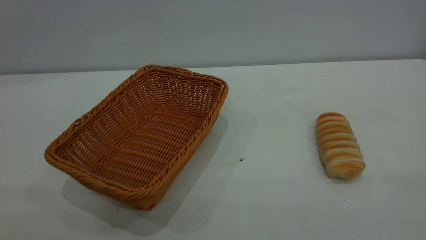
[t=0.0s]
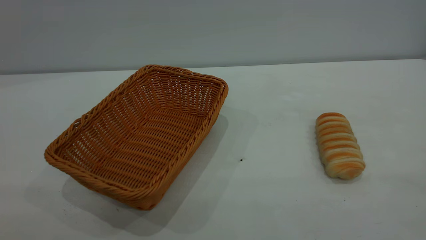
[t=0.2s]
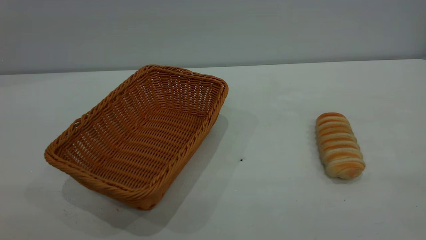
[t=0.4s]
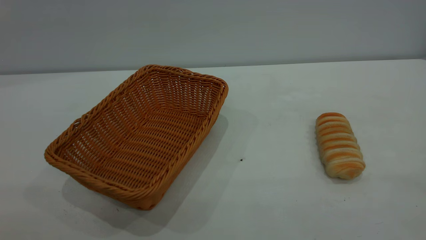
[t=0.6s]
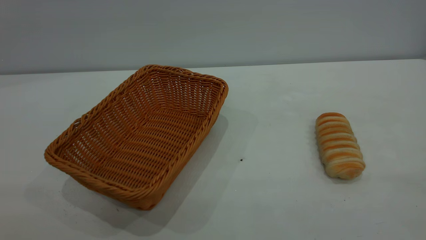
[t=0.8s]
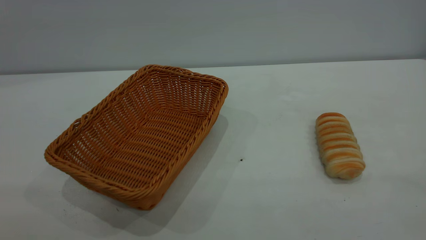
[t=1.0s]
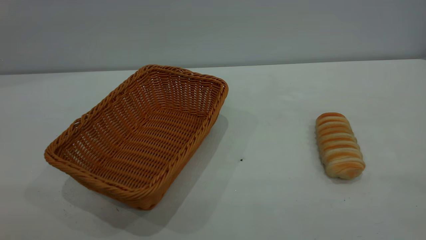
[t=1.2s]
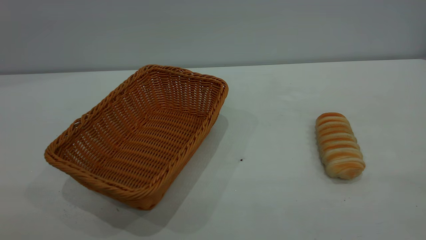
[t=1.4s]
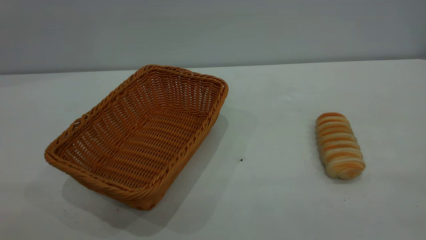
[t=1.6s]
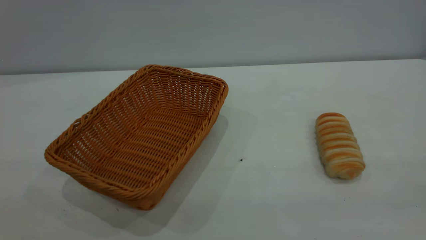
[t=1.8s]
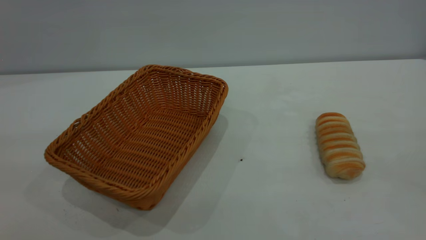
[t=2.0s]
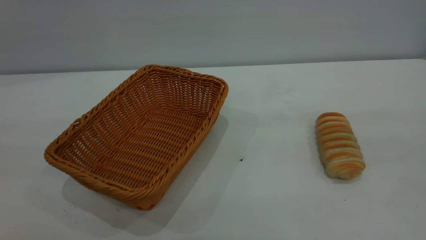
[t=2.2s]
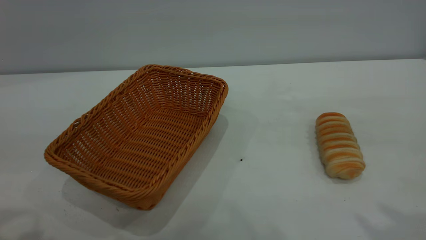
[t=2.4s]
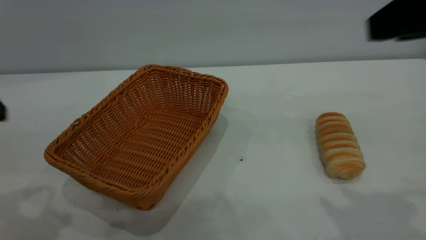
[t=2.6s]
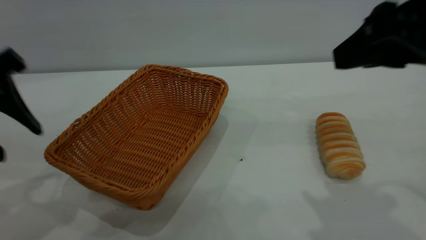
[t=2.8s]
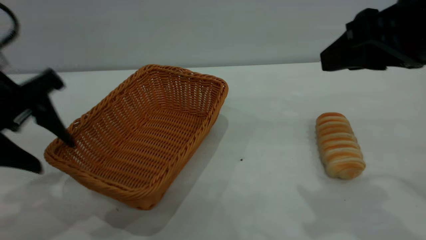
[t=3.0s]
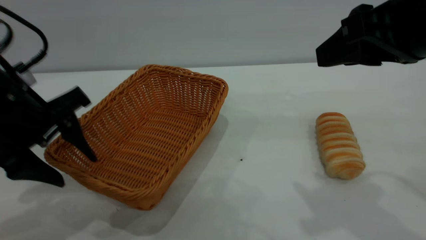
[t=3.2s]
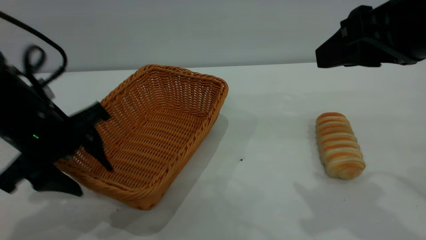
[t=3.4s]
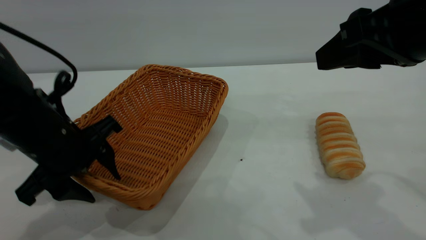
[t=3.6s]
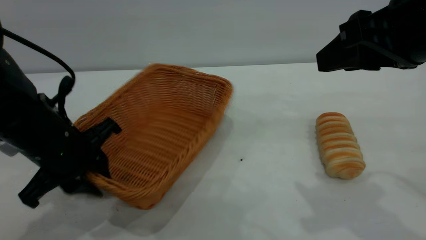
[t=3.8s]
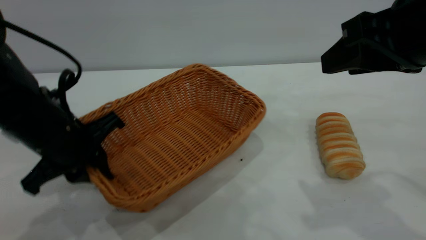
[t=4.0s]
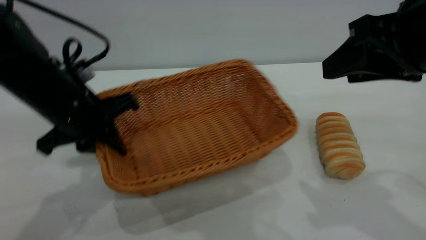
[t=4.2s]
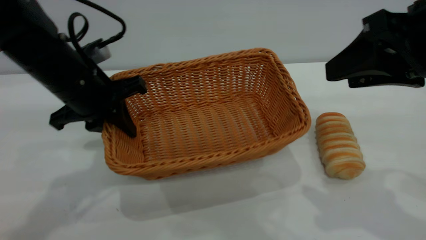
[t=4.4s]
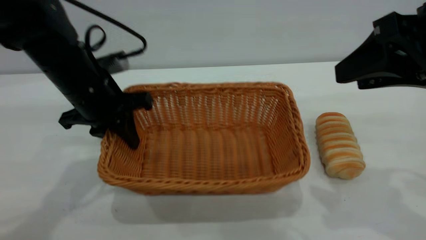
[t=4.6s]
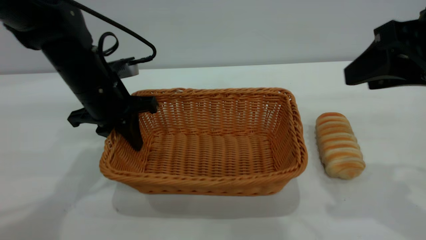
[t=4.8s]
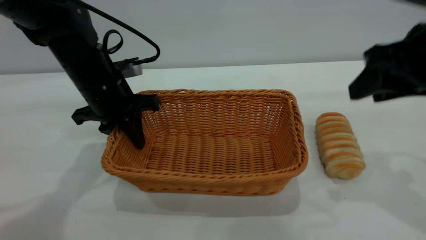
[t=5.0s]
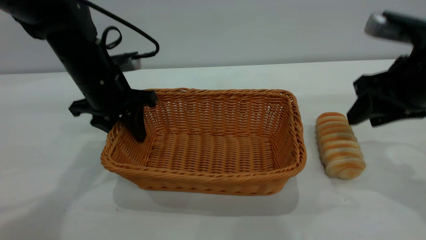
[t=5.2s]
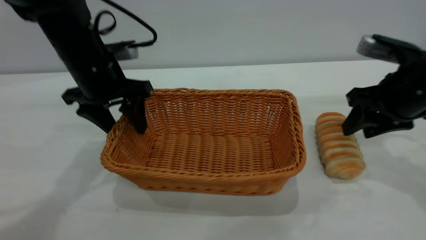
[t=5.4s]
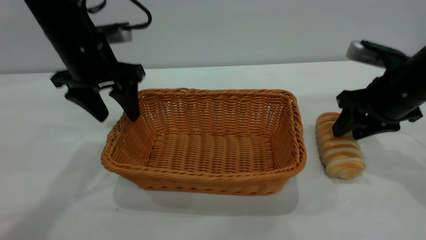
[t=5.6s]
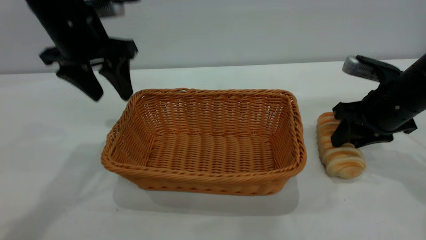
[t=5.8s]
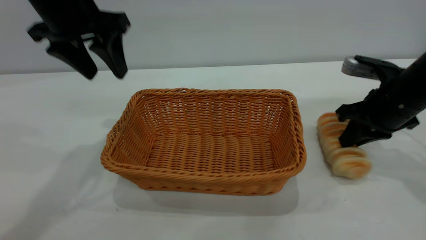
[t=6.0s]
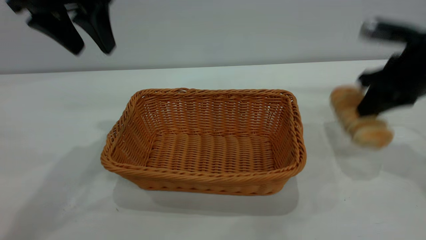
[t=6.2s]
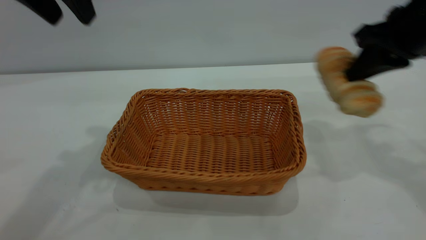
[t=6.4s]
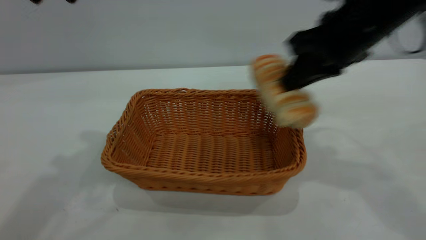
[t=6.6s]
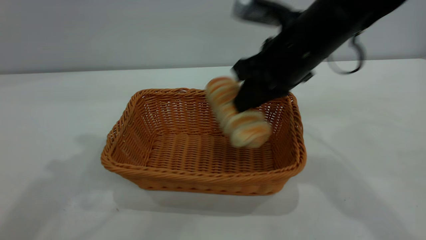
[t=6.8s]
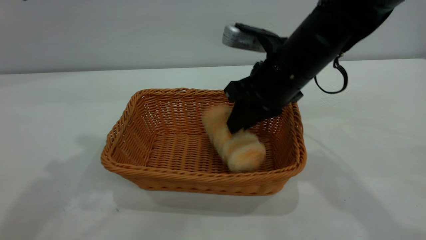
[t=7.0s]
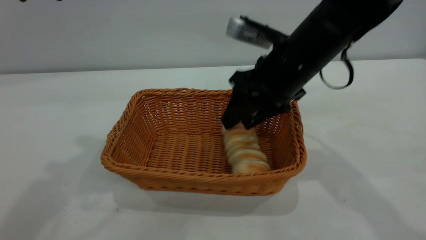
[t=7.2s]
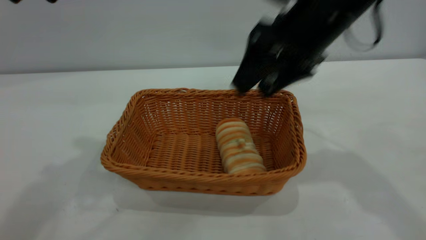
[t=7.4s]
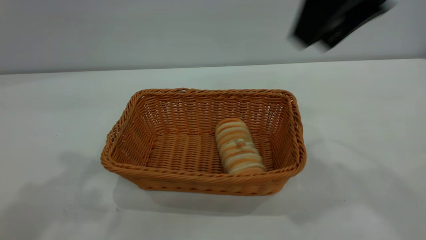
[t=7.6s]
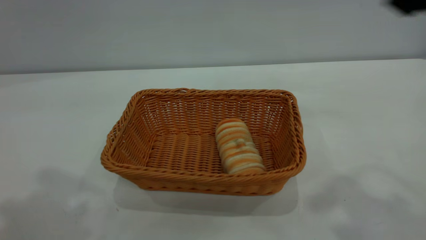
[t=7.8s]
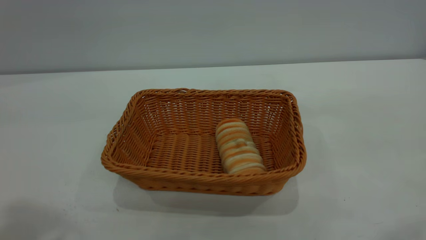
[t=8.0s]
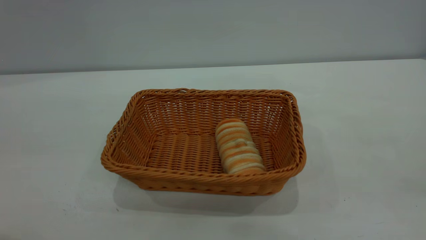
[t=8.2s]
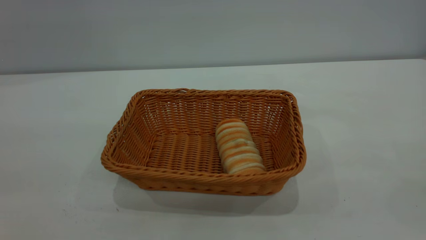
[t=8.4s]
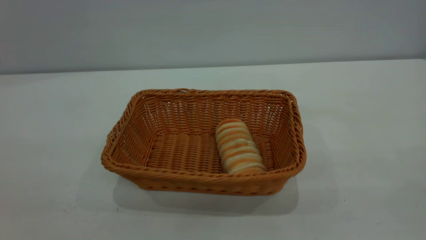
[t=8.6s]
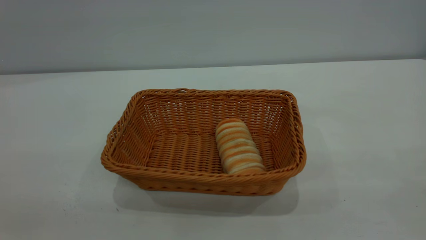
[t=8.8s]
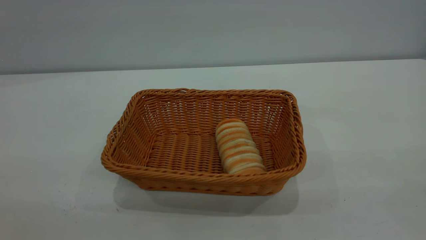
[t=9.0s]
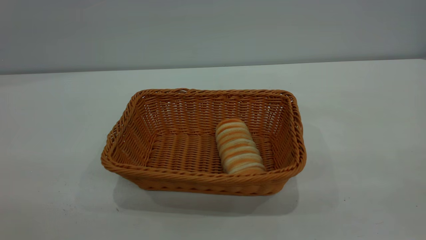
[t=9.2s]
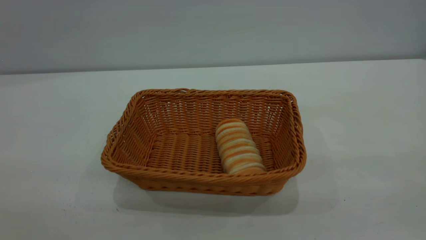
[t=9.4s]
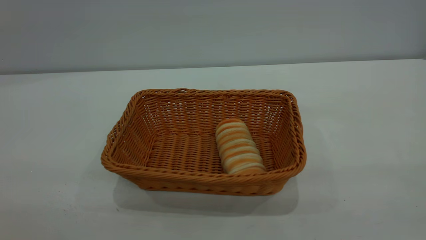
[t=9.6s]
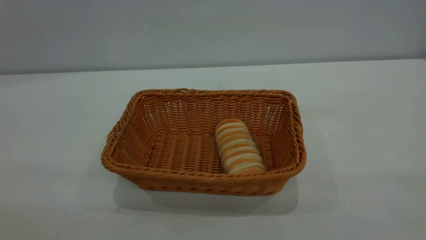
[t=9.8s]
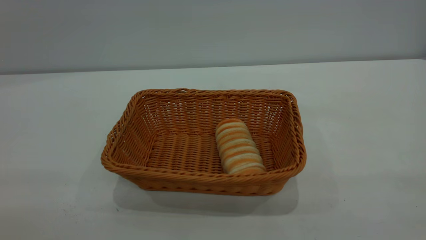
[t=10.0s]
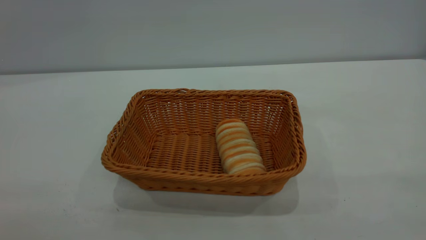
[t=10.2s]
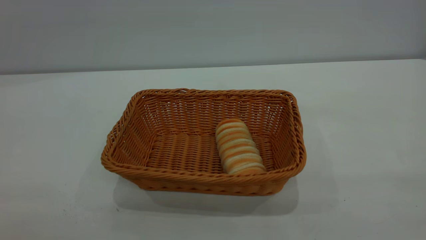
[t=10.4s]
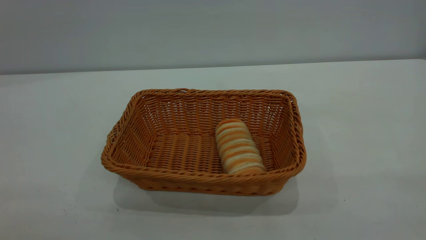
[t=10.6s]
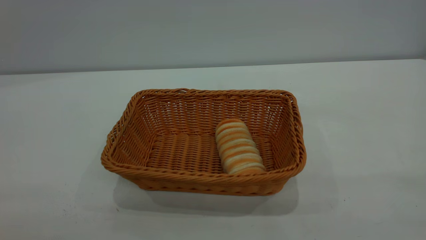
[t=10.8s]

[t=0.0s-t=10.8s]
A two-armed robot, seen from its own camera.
Task of the whole recording: One hand grasps the yellow basket and places it in the middle of the table, while the other hand picks up the long bread and puts it into the yellow basket.
Step, t=0.0s to t=5.6s: Move the basket to the center of view.
Step, t=6.4s to t=7.4s: place the bread into the basket.
t=0.0s to t=1.6s: Both grippers stay about where they are.
t=1.6s to t=3.0s: The right gripper shifts approximately 25 cm forward. Meanwhile the left gripper goes some 30 cm forward and downward.
t=3.0s to t=4.6s: The left gripper heads forward, to the right and downward, covering some 15 cm, and closes.
t=4.6s to t=6.2s: The right gripper heads forward and downward, covering approximately 15 cm, and closes up. Meanwhile the left gripper shifts roughly 20 cm upward, and opens its fingers.
t=6.2s to t=7.8s: The right gripper moves up and down over roughly 25 cm, changing direction 2 times, and opens up; the left gripper goes roughly 20 cm upward and backward.
